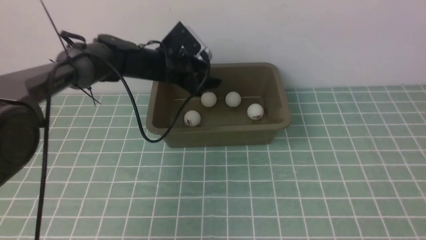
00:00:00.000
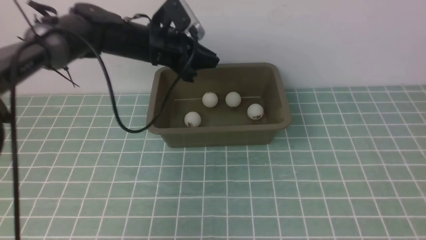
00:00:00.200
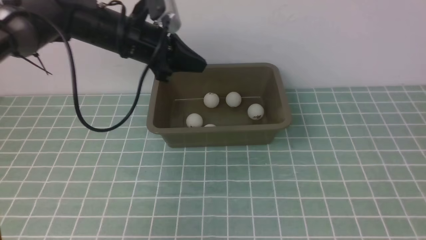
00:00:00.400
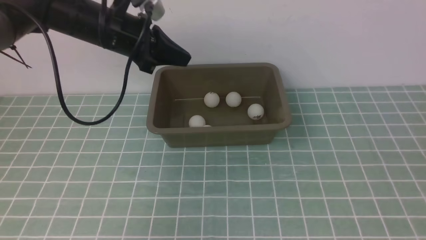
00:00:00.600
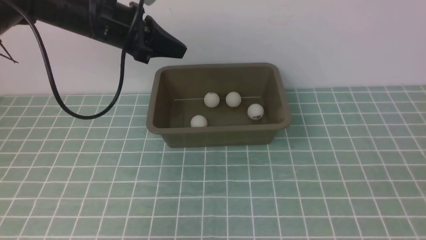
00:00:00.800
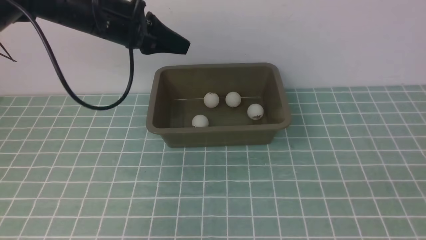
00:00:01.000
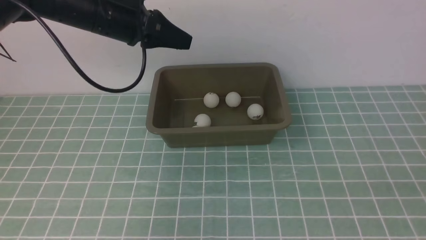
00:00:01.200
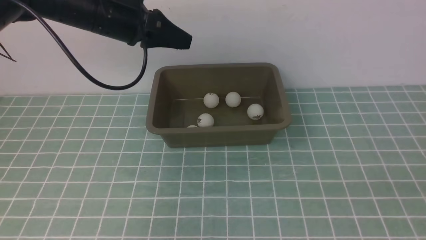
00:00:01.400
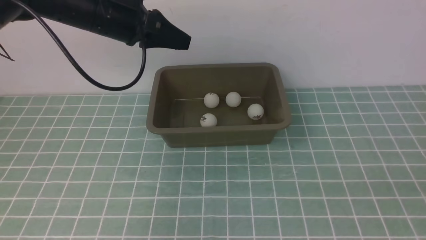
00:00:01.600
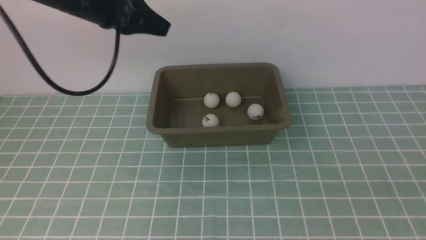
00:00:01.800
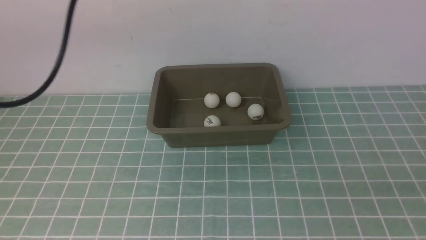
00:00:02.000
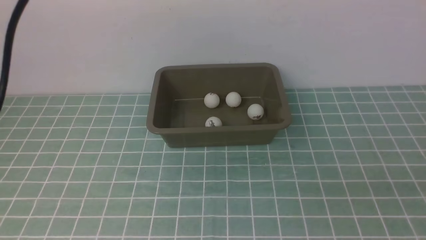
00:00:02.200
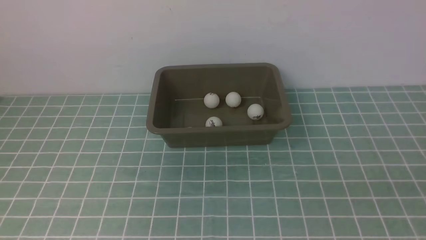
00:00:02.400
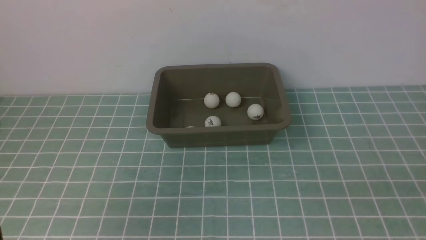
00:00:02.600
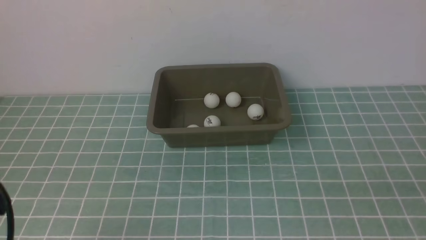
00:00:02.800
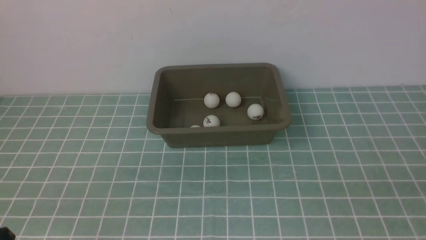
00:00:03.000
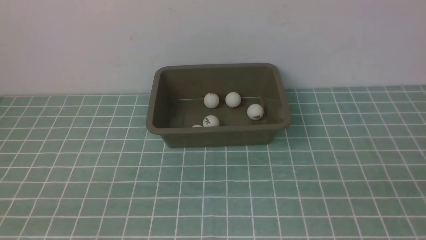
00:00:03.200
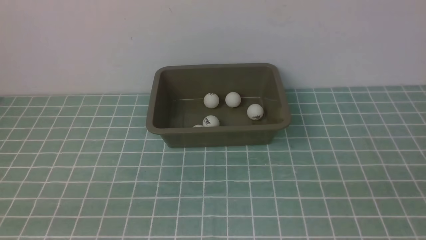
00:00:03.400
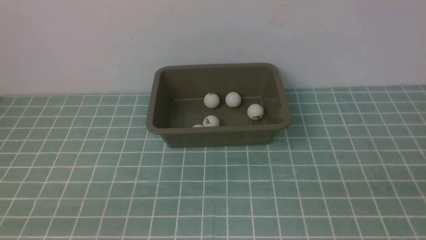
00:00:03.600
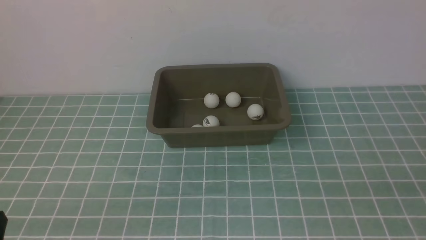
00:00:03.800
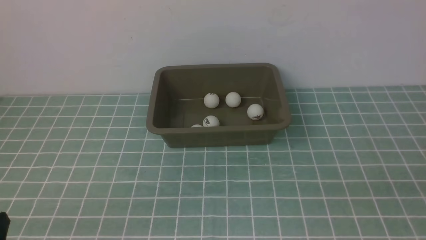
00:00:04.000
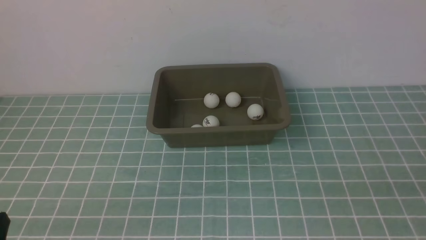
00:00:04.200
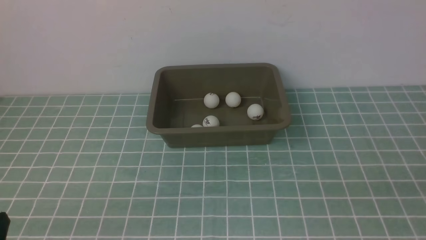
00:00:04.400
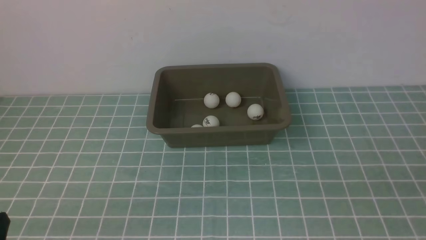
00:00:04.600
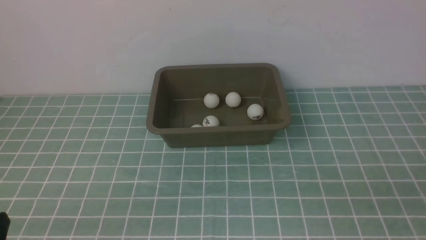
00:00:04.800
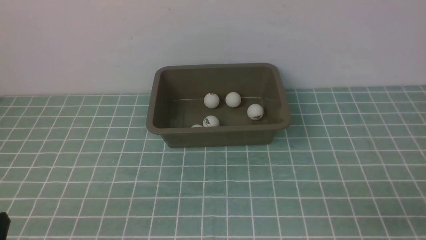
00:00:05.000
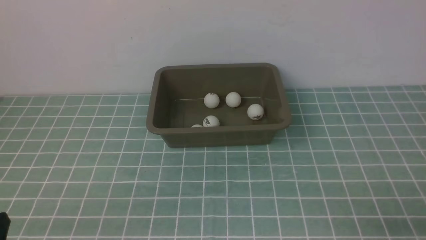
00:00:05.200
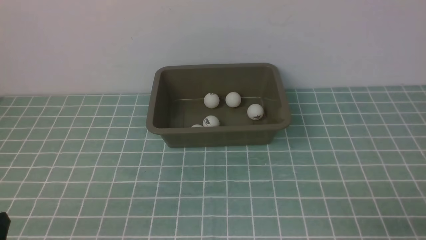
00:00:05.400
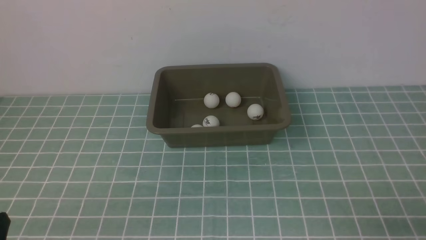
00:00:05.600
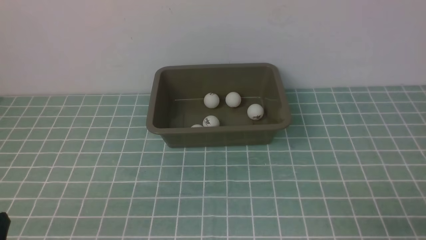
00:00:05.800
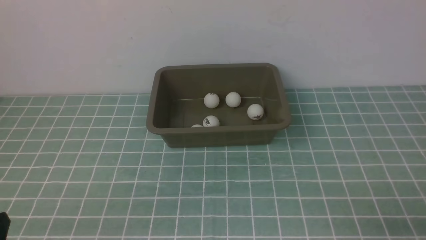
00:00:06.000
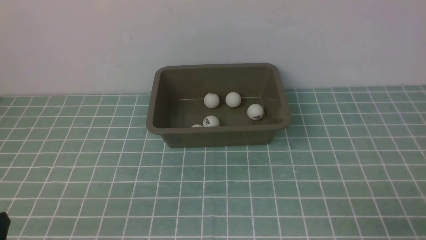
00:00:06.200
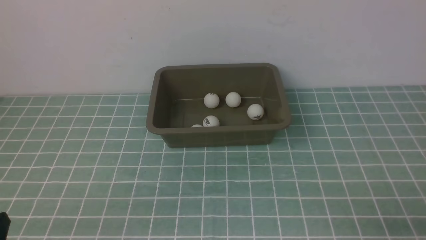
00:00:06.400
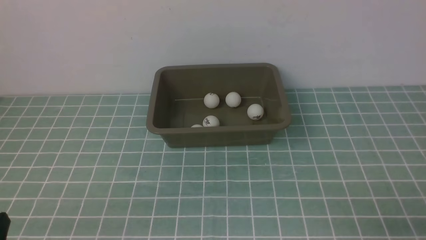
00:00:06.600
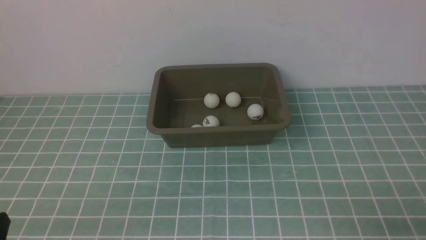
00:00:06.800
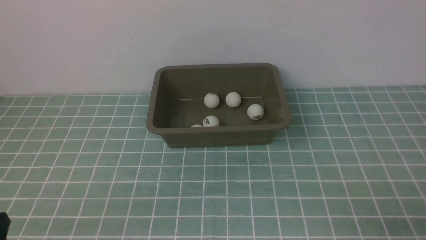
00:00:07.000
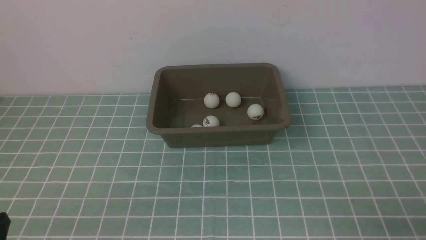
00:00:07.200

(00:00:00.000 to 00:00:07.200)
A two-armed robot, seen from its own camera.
00:00:00.000 - 00:00:01.400: The left gripper is displaced upward by roughly 5 cm, while the right gripper goes approximately 5 cm downward.
00:00:01.400 - 00:00:02.800: The left gripper heads backward, covering approximately 30 cm.
00:00:02.800 - 00:00:04.400: The left gripper travels downward and backward by approximately 10 cm.
00:00:05.800 - 00:00:07.200: The two grippers keep their place.
